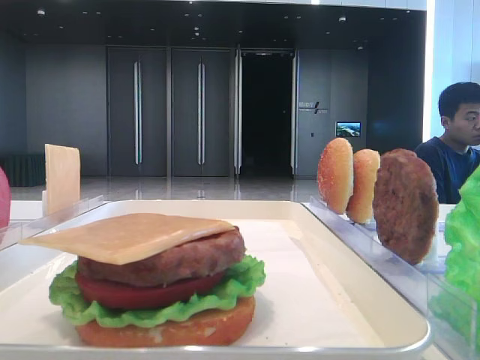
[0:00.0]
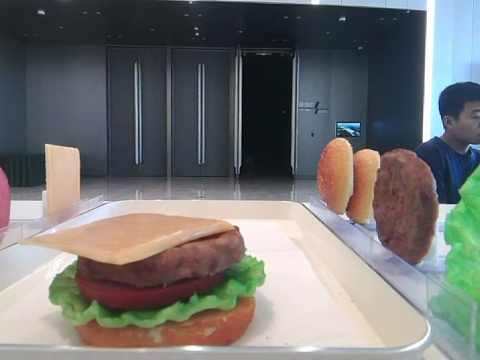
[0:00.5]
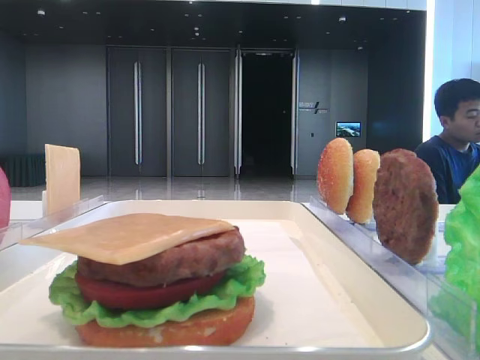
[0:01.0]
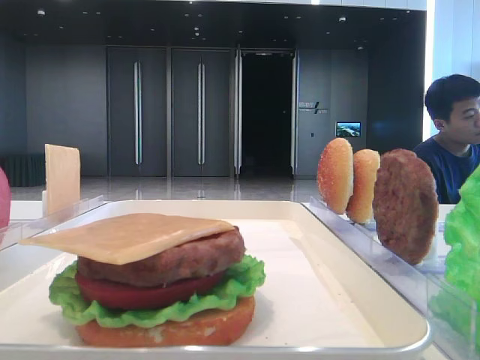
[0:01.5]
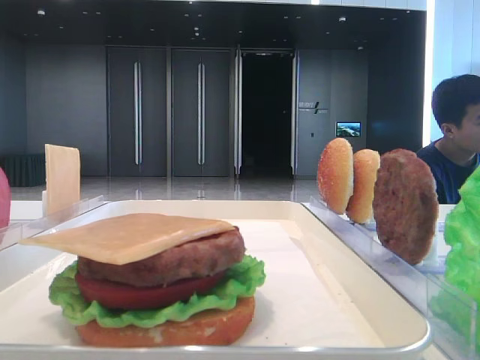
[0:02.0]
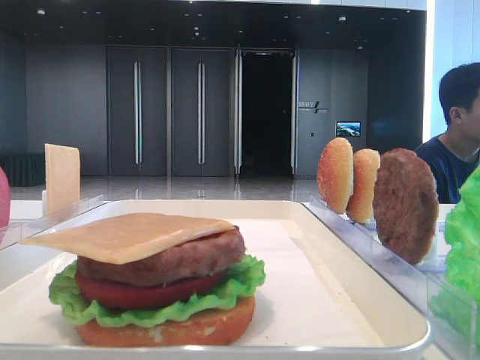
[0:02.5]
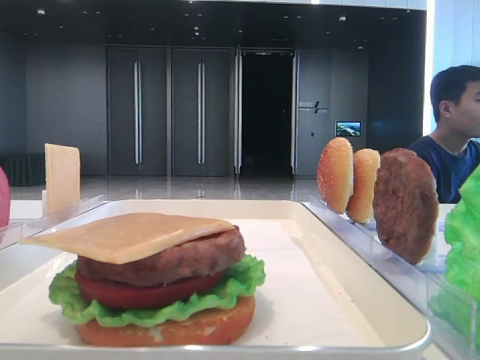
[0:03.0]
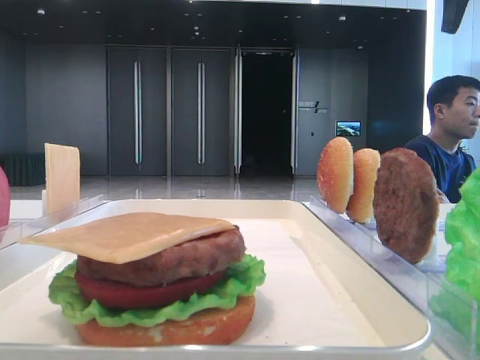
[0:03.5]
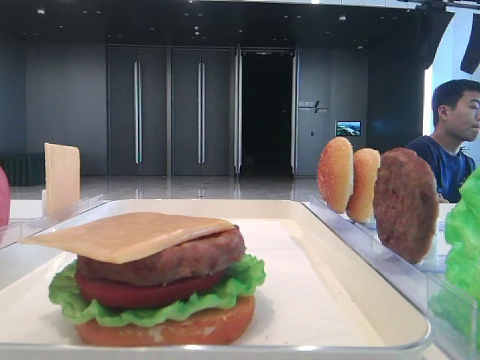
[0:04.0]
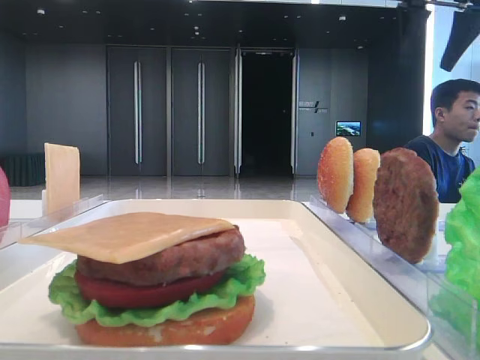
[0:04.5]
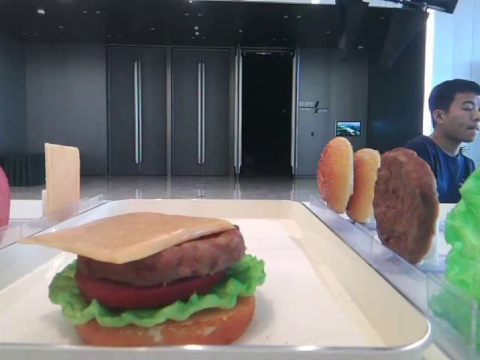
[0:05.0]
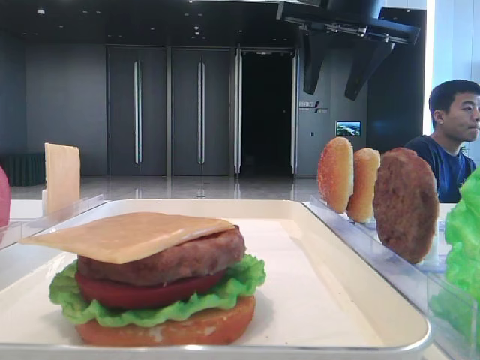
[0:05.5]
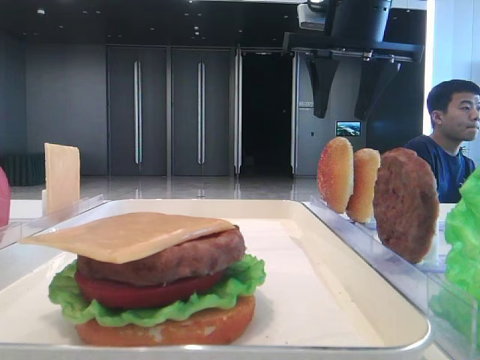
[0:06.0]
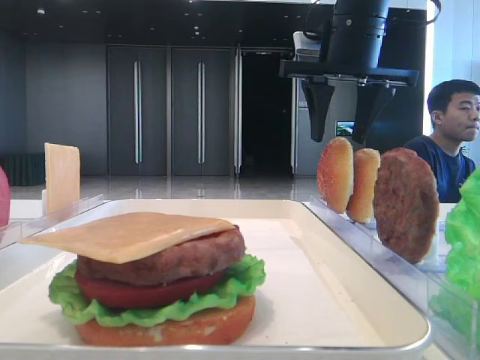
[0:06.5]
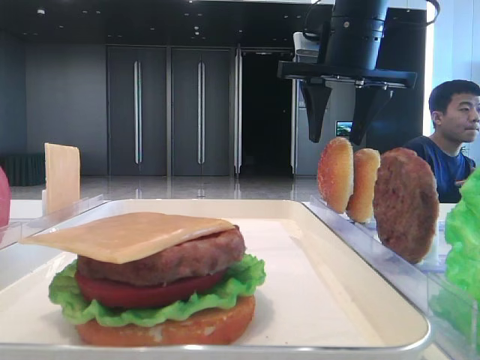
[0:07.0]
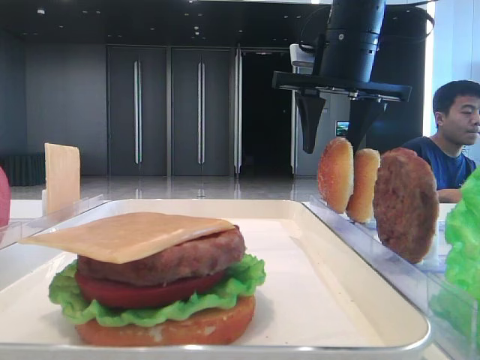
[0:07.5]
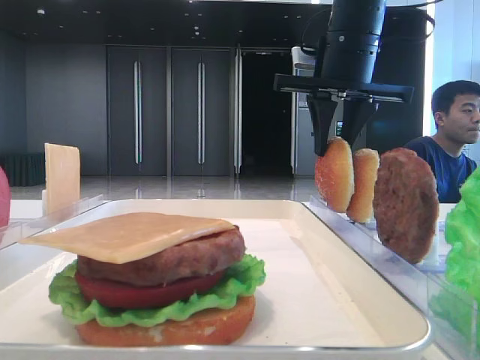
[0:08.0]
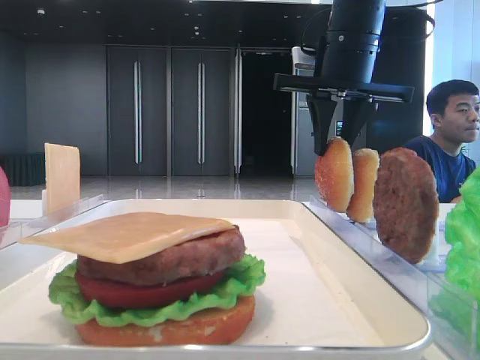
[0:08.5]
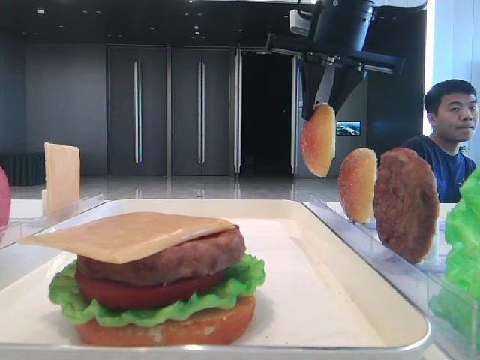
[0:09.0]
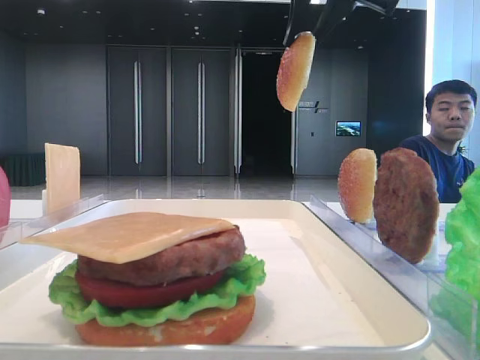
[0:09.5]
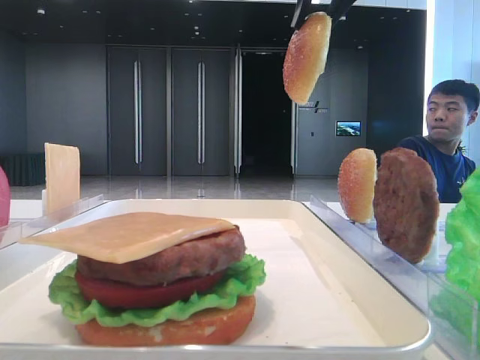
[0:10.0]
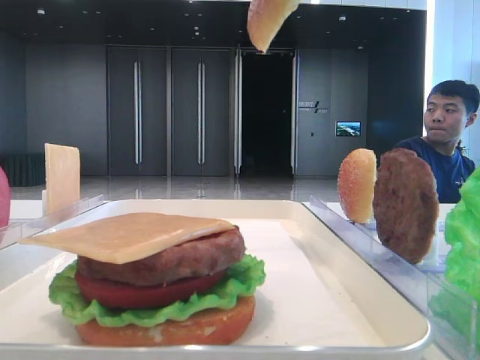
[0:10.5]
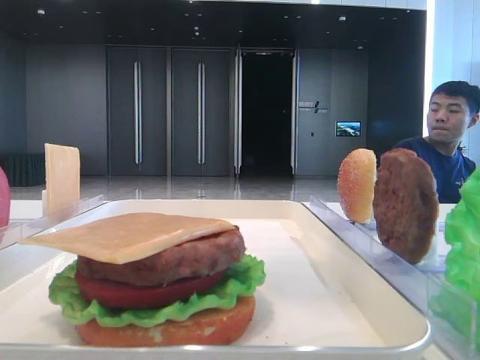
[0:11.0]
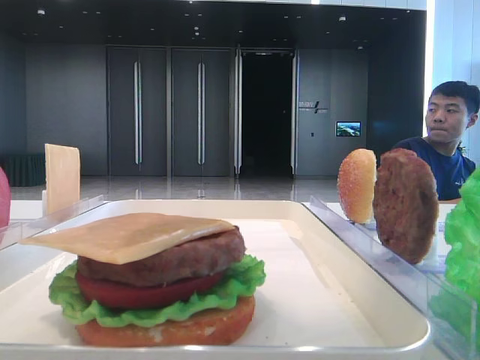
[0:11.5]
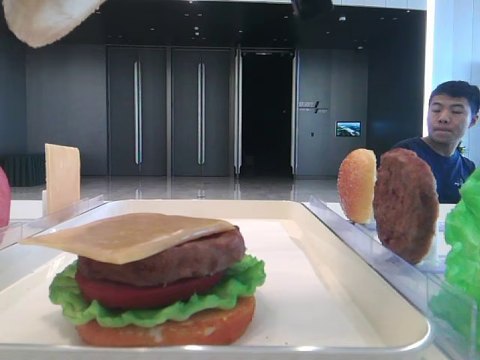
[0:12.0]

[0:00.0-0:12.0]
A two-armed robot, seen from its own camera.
Step, 0:00.0 to 0:07.5: Pick up the top bread slice with the right hand.
0:02.0 to 0:04.0: The right gripper is displaced forward by about 40 cm.
0:04.0 to 0:06.0: The right gripper goes some 15 cm to the left and downward.
0:06.0 to 0:08.0: The right gripper closes up.
0:08.0 to 0:10.0: The right gripper moves upward and backward, some 15 cm.
0:10.0 to 0:12.0: The right gripper moves backward and downward, approximately 15 cm.

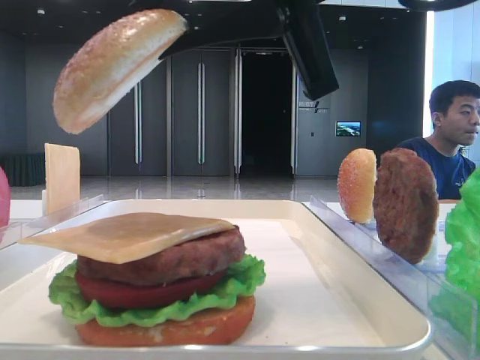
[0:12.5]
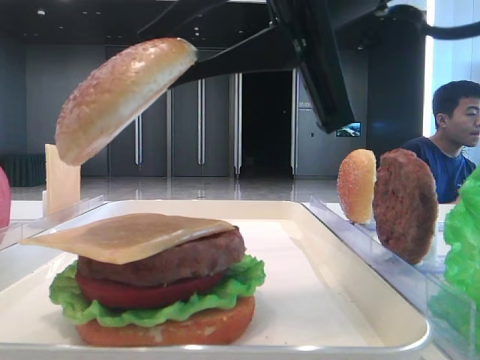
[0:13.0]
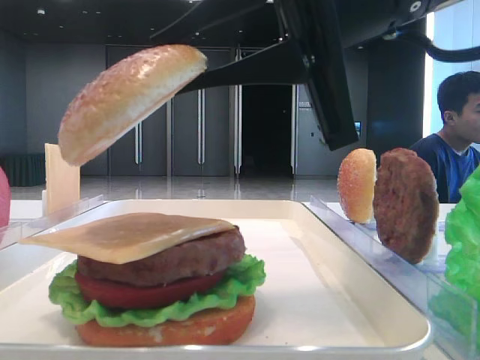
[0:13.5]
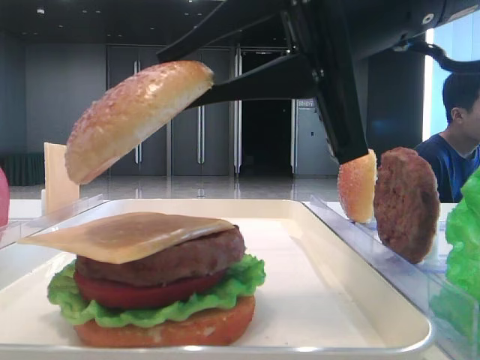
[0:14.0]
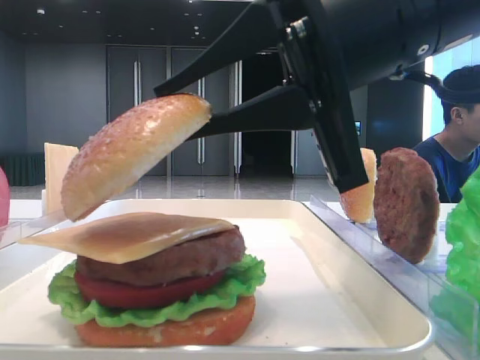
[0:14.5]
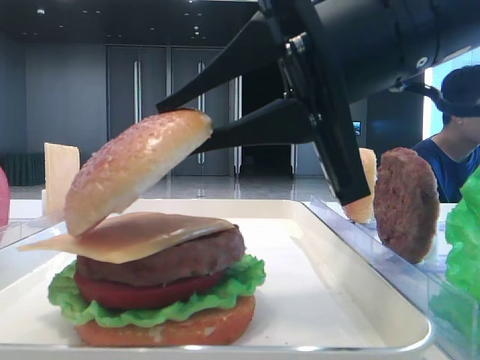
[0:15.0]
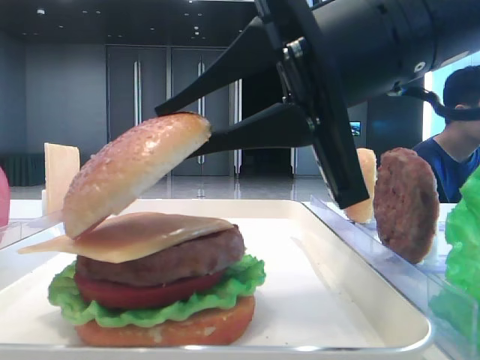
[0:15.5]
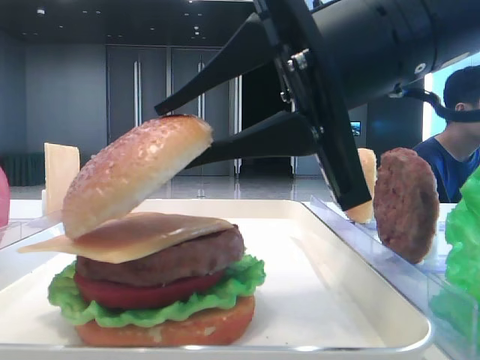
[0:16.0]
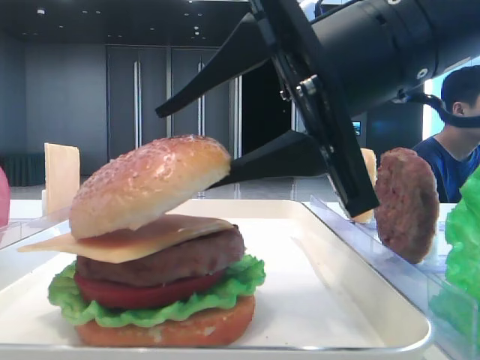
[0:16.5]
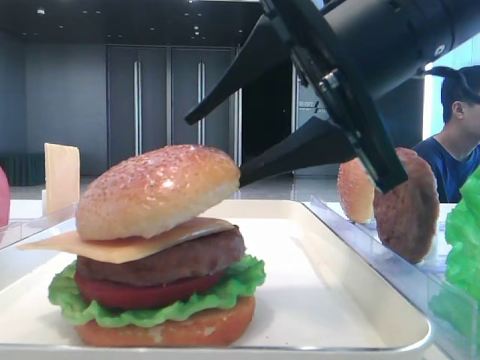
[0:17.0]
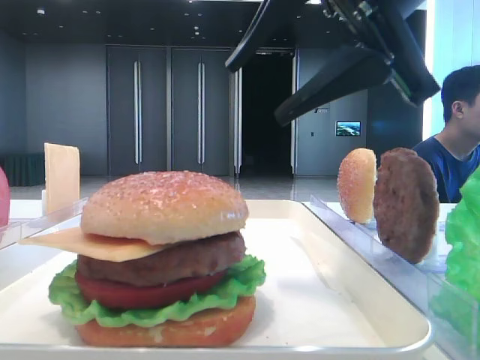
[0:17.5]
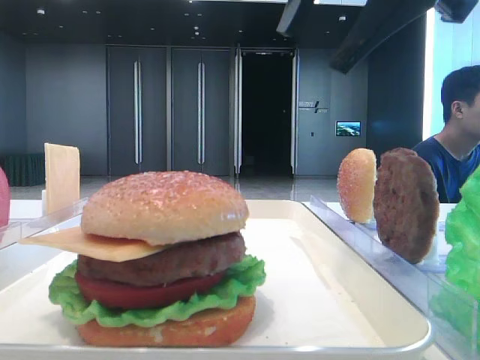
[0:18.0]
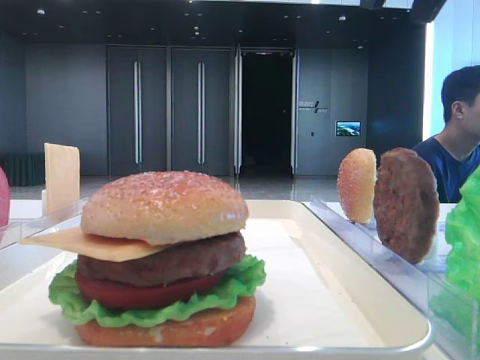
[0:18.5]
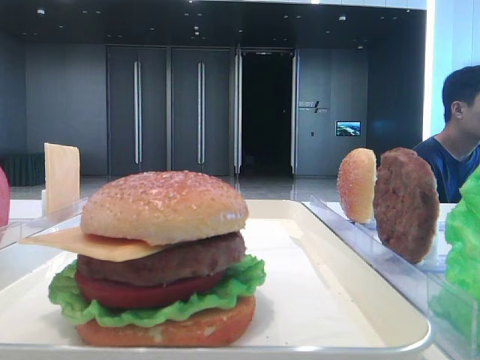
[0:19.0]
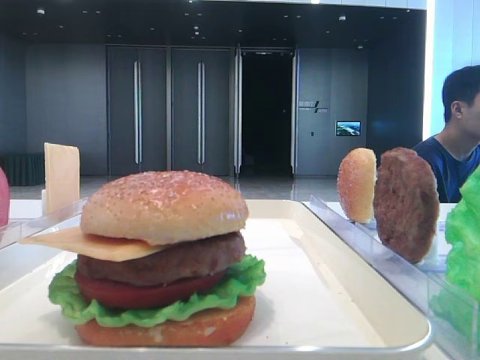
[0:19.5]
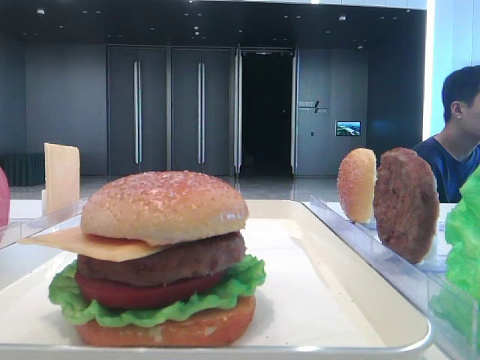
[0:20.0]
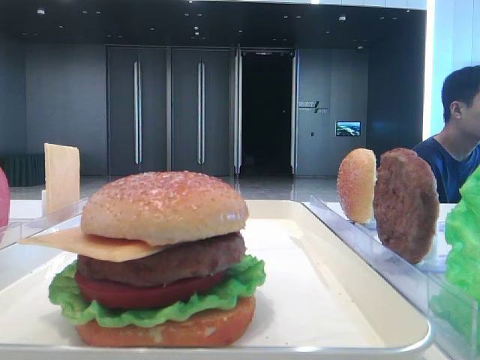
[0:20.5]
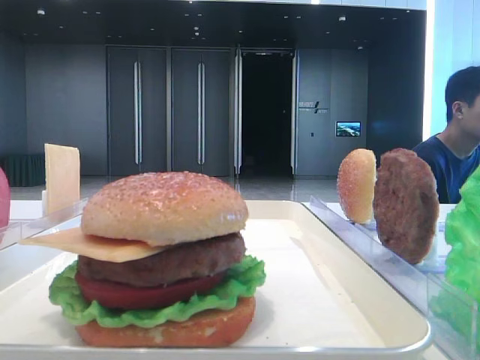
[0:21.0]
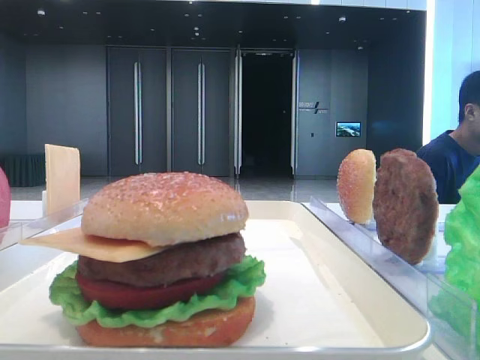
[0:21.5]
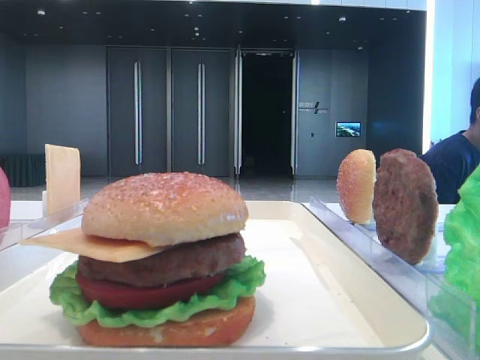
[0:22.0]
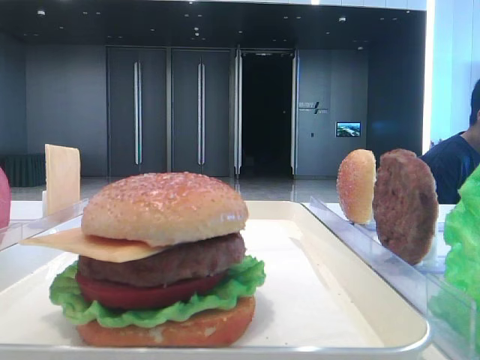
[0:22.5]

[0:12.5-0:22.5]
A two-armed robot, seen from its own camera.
Step, 0:12.5 to 0:17.0: Place the top bread slice on the cheese with the right hand.
0:12.5 to 0:14.5: The right gripper is displaced downward by approximately 5 cm.
0:14.5 to 0:16.5: The right gripper opens up.
0:16.5 to 0:18.5: The right gripper travels upward by about 15 cm.
0:18.5 to 0:20.5: The right gripper travels to the right and backward by approximately 20 cm.
0:20.5 to 0:22.5: The right gripper is displaced backward by some 15 cm.

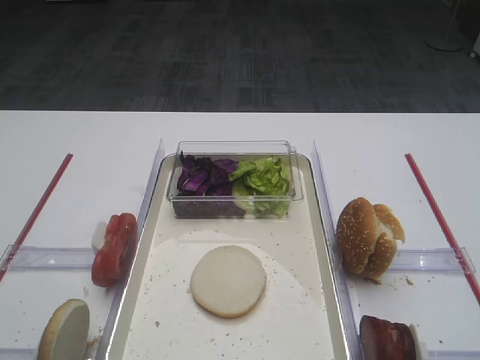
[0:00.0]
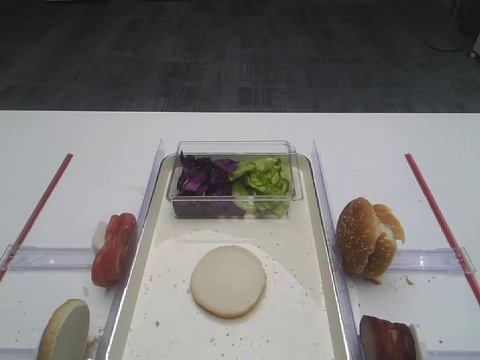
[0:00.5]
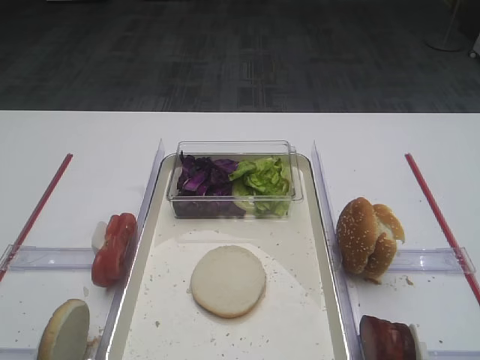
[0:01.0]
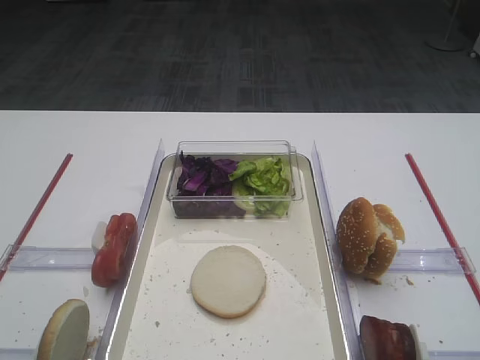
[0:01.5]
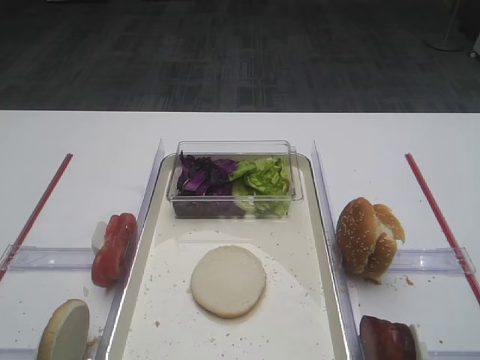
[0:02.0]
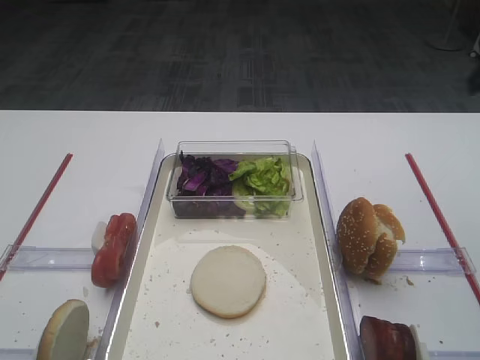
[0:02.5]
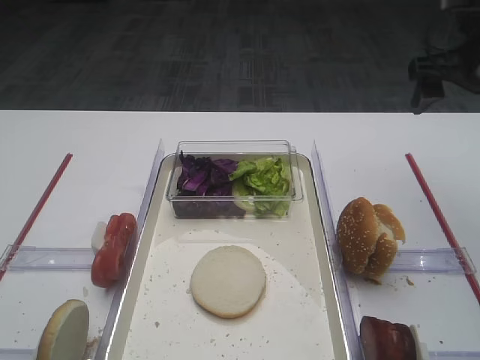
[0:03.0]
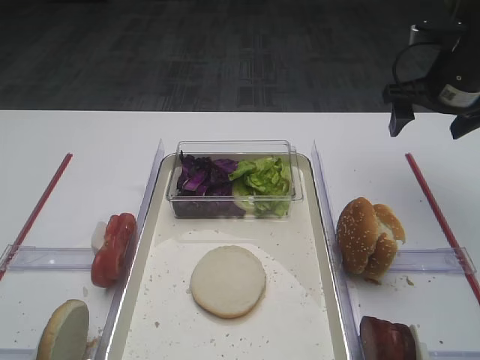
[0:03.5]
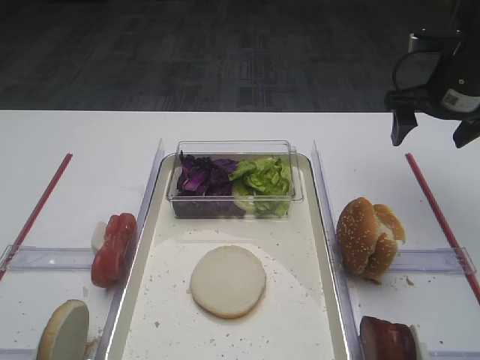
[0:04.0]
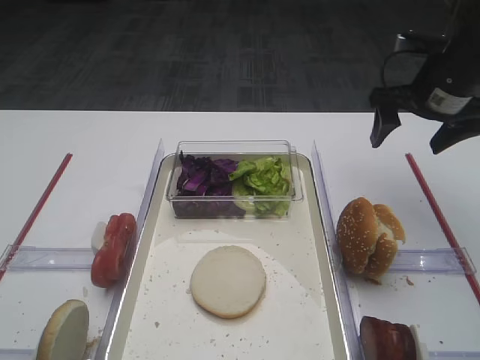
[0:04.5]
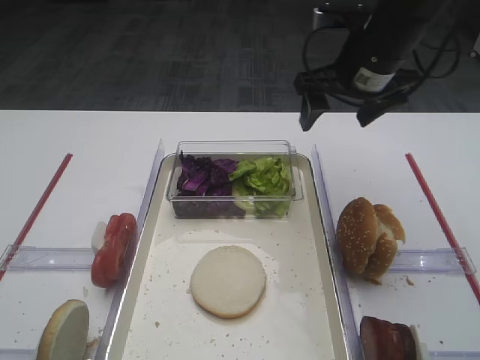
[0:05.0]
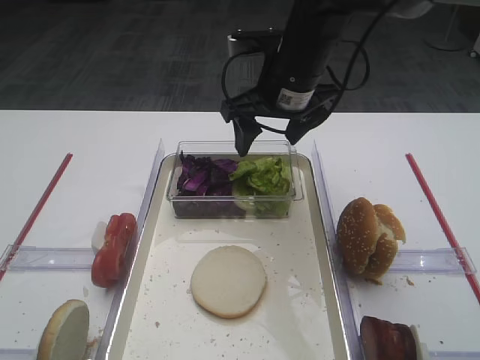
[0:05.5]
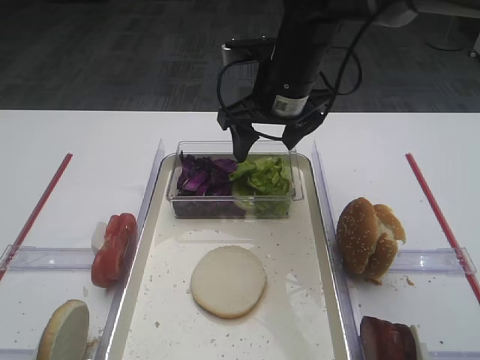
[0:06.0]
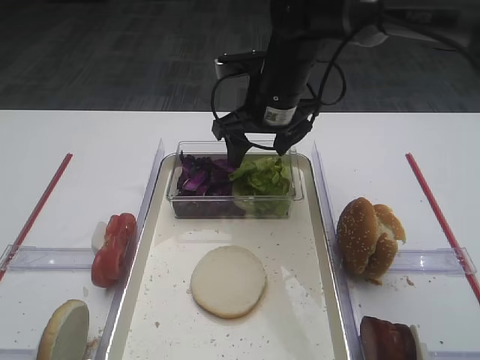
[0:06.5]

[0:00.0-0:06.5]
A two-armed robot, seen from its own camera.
0:02.0 to 0:04.5: The right gripper is displaced forward by approximately 30 cm.
0:04.5 to 0:06.5: The right gripper heads to the left, covering approximately 20 cm.
